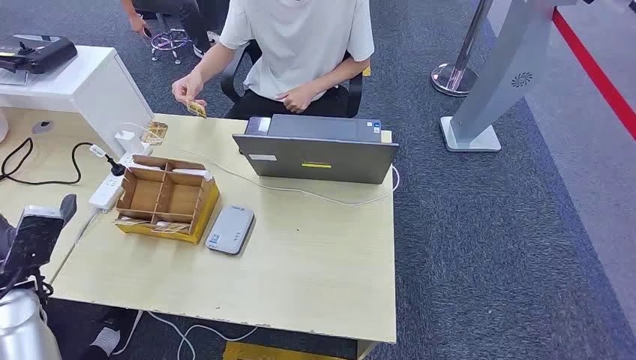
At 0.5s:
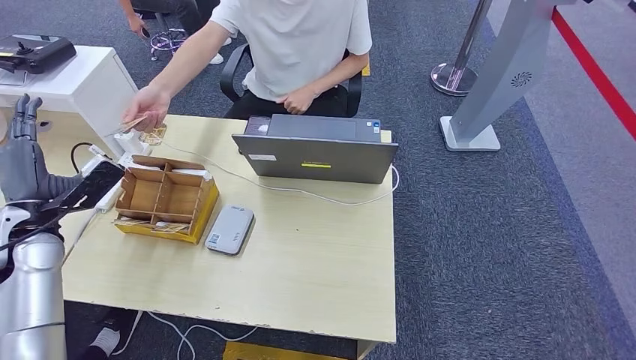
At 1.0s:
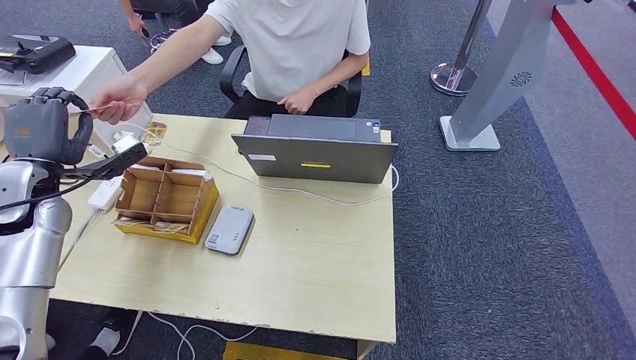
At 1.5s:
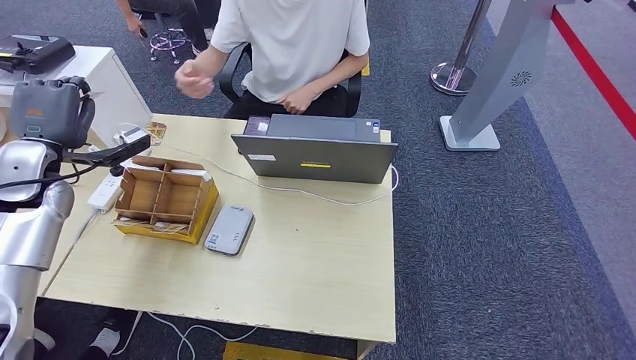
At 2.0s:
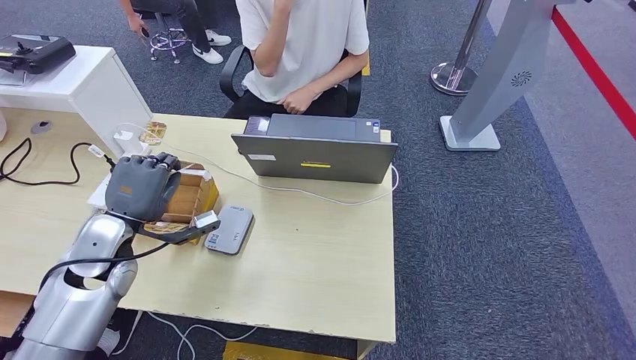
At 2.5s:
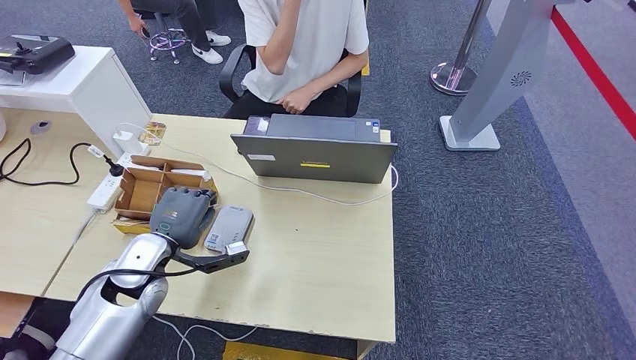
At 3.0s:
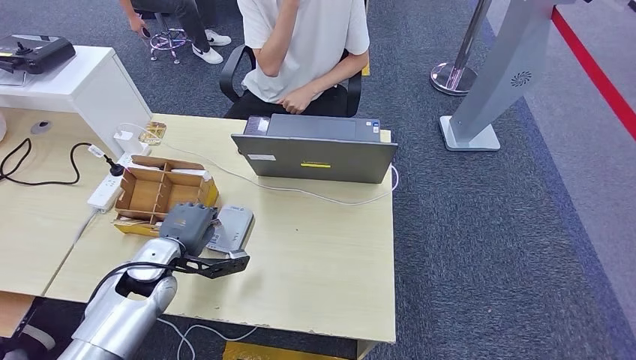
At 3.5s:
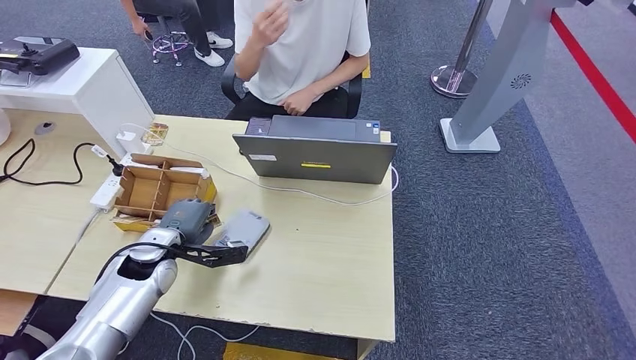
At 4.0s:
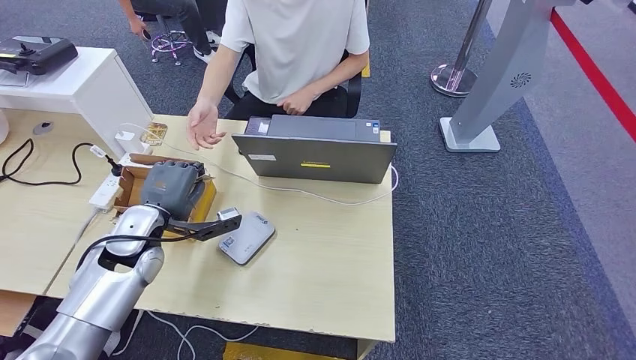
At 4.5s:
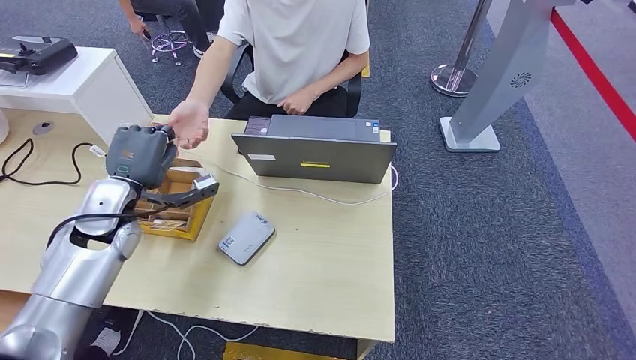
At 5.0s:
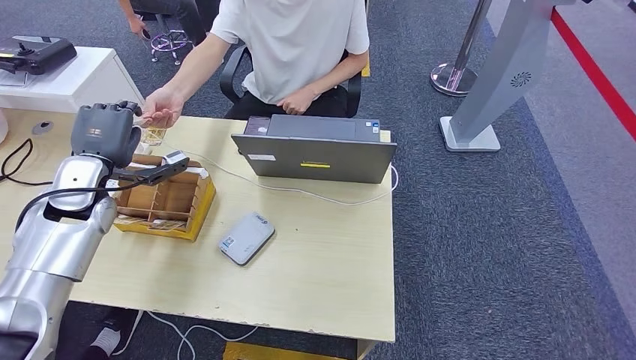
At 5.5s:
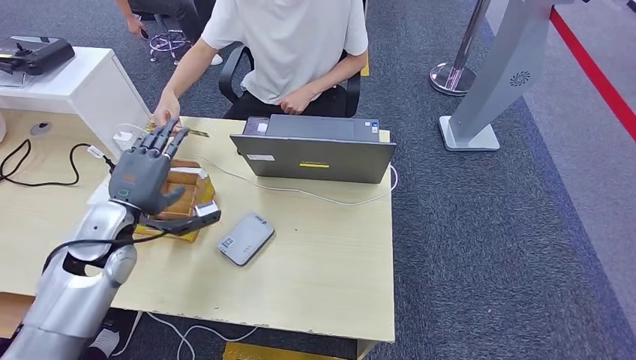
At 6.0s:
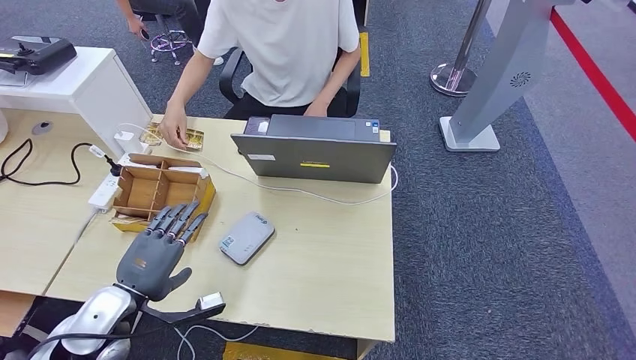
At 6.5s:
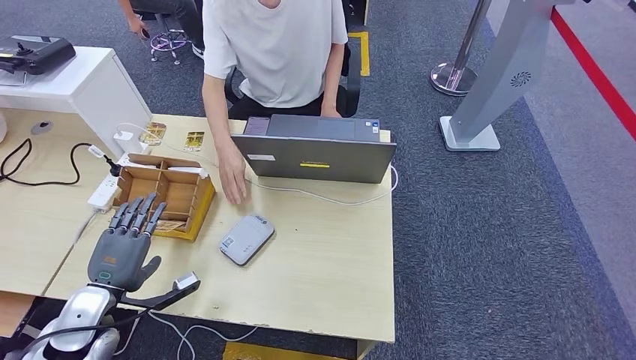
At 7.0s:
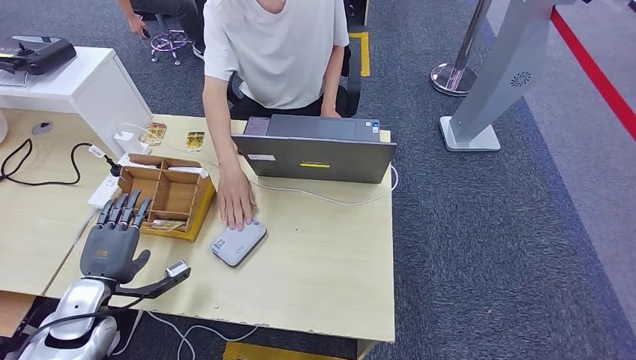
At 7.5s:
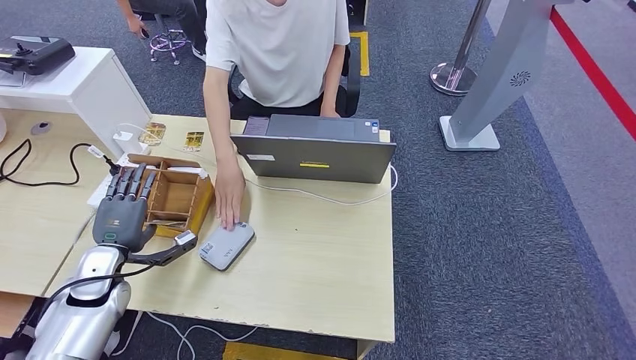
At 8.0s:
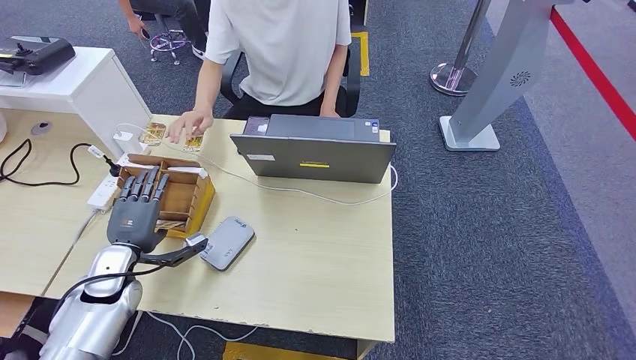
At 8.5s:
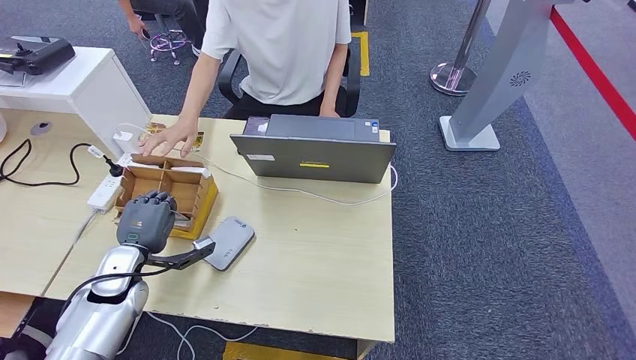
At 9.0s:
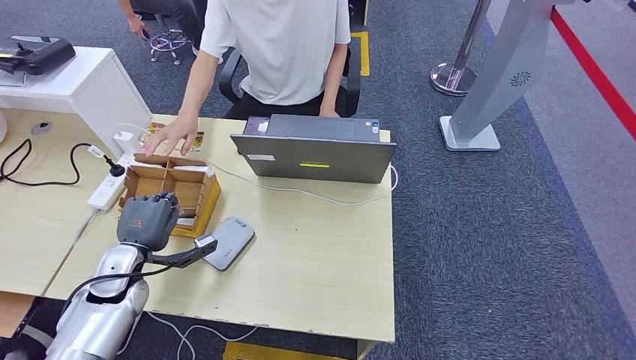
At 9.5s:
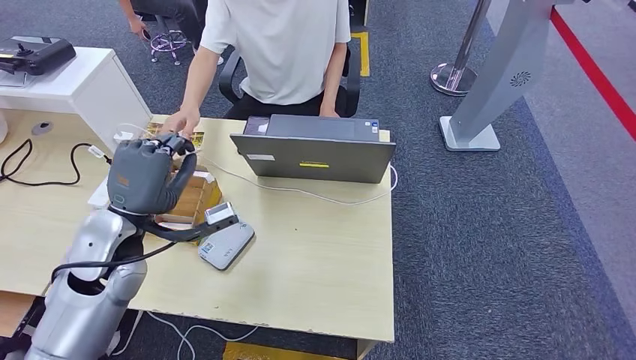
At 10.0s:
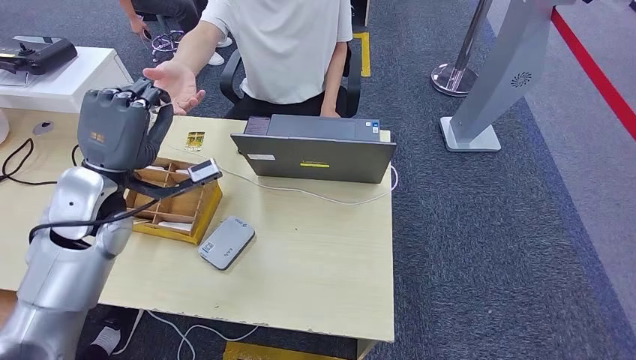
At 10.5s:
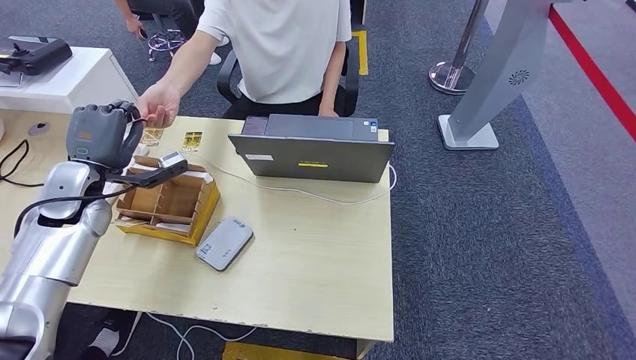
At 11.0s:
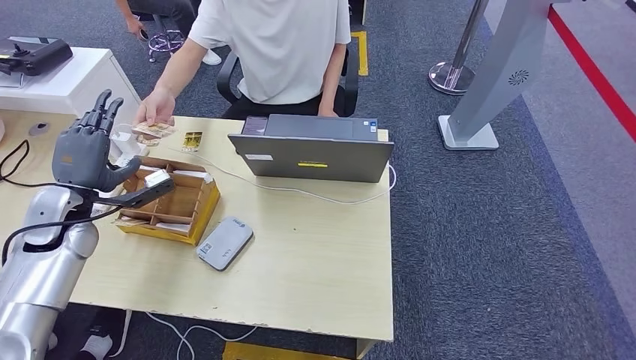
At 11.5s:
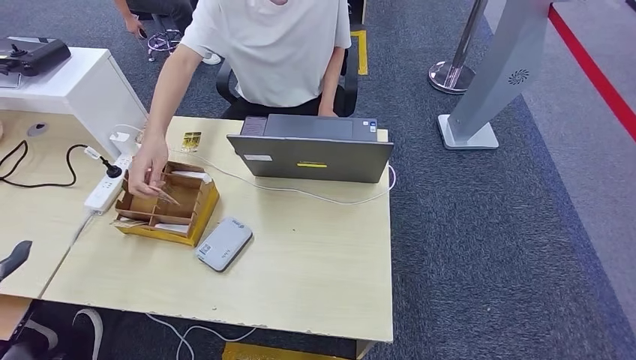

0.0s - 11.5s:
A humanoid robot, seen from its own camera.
Step, 0.0s - 1.5s: Take the ID card from the person's hand.
Step, 2.0s - 3.5s: Place the ID card on the card reader.
Step, 4.0s - 5.5s: Hand the ID card to the person.
Step, 8.0s - 9.0s: Pick up the room key from the key card box.
Step, 9.5s - 11.0s: Hand the room key to the person.
2.0s - 4.0s: The left hand travels downward and back again, some 10 cm each way.
4.0s - 6.0s: The left hand shifts approximately 15 cm backward.
6.0s - 7.5s: The left hand is displaced forward and to the left by about 10 cm.
7.5s - 9.5s: The left hand heads upward and to the right, covering approximately 15 cm.
9.5s - 11.5s: The left hand is displaced to the left and backward by roughly 30 cm.
